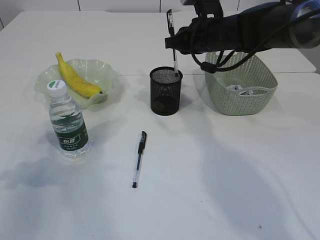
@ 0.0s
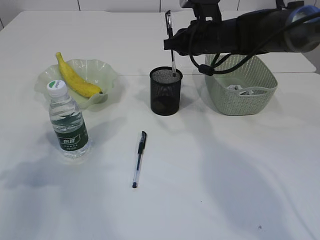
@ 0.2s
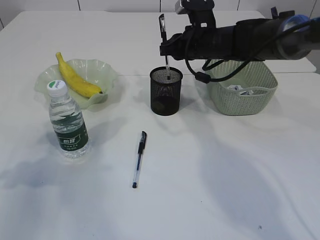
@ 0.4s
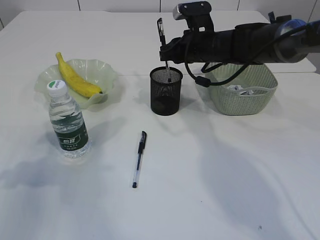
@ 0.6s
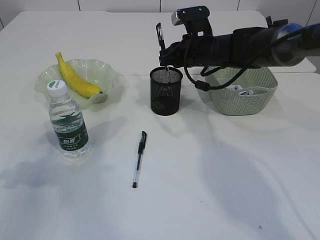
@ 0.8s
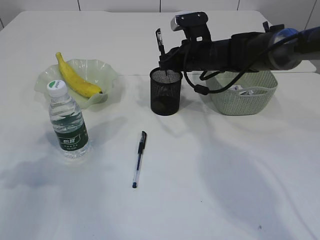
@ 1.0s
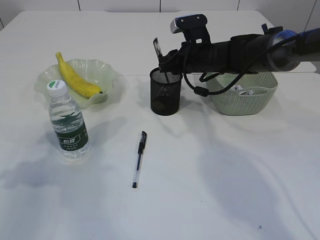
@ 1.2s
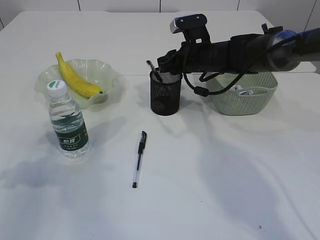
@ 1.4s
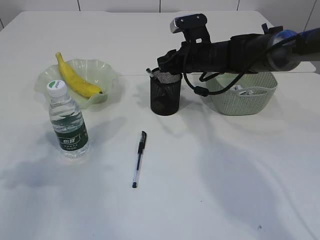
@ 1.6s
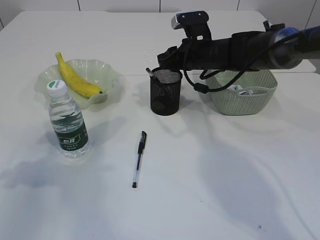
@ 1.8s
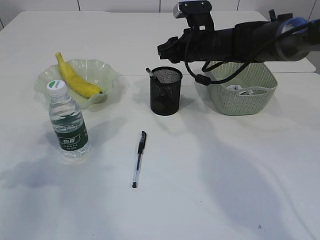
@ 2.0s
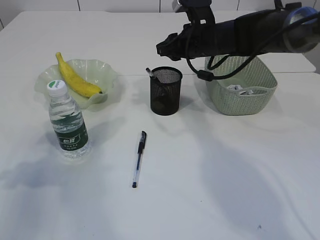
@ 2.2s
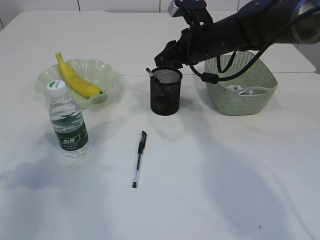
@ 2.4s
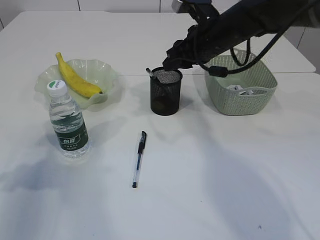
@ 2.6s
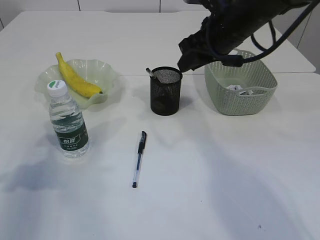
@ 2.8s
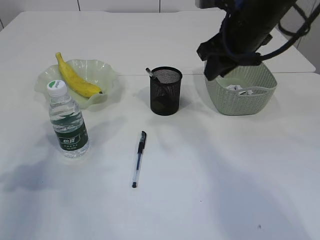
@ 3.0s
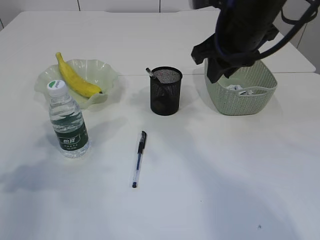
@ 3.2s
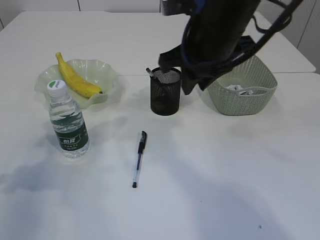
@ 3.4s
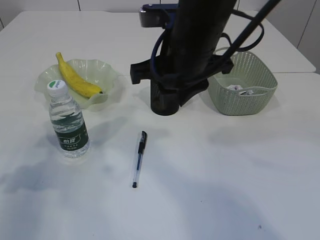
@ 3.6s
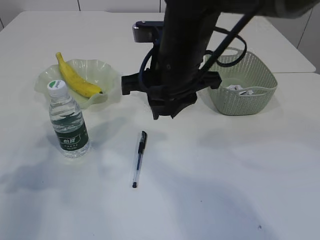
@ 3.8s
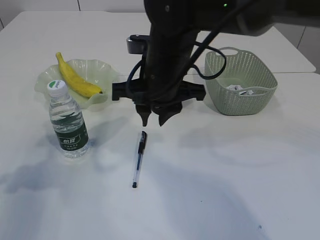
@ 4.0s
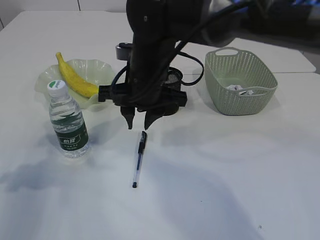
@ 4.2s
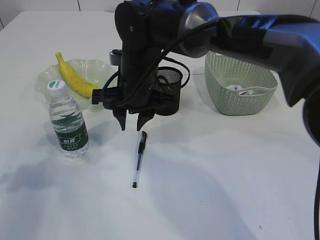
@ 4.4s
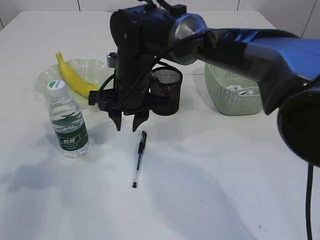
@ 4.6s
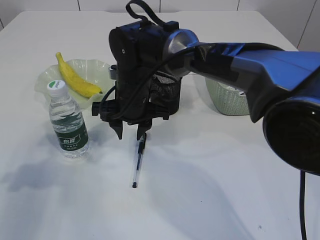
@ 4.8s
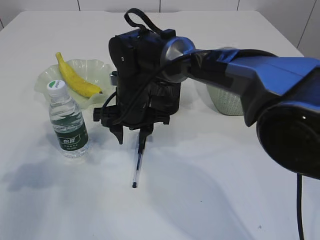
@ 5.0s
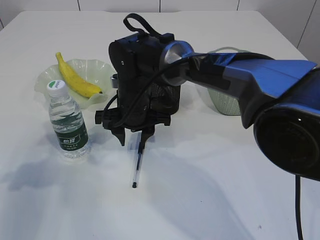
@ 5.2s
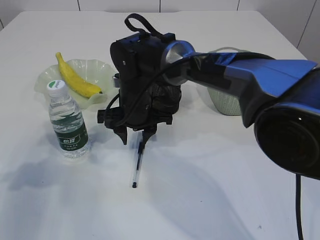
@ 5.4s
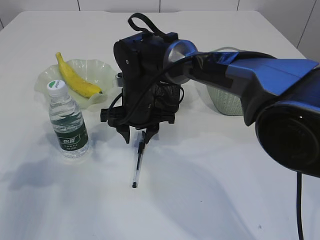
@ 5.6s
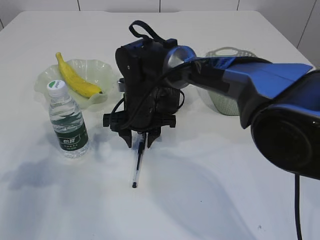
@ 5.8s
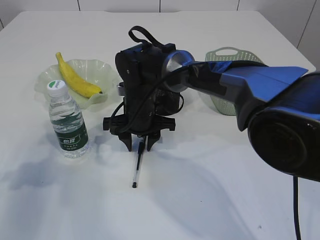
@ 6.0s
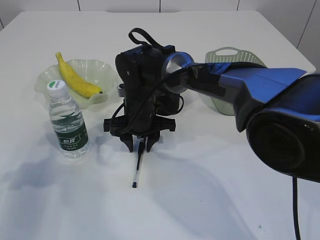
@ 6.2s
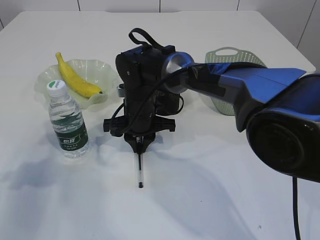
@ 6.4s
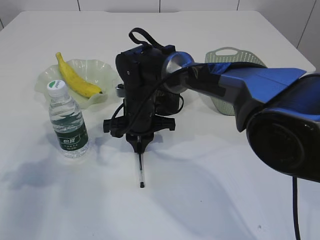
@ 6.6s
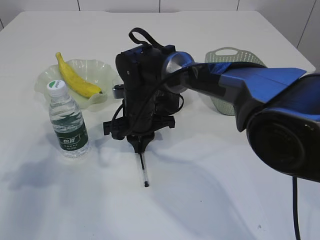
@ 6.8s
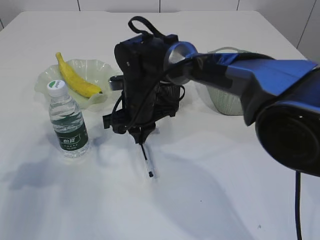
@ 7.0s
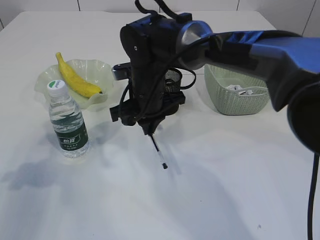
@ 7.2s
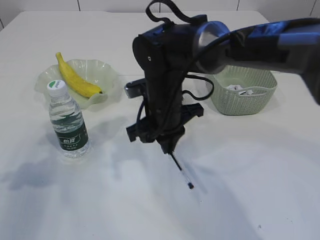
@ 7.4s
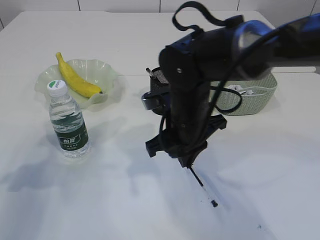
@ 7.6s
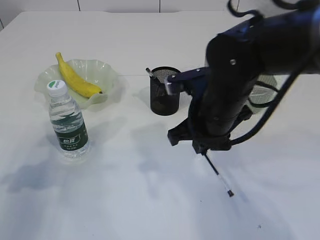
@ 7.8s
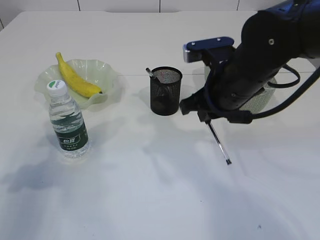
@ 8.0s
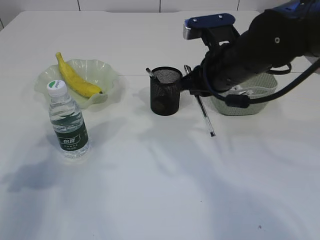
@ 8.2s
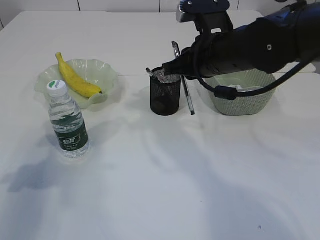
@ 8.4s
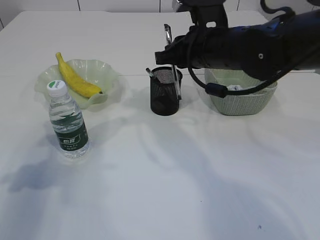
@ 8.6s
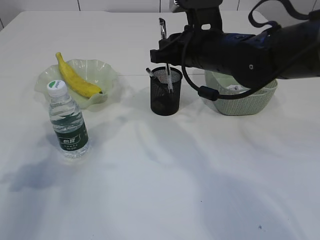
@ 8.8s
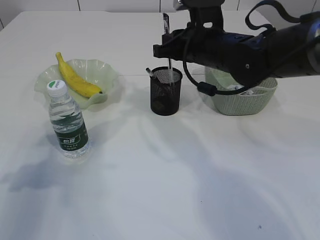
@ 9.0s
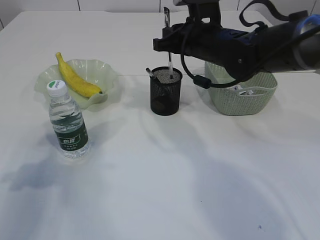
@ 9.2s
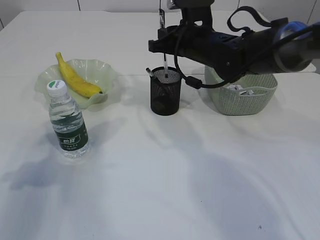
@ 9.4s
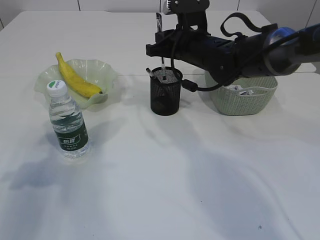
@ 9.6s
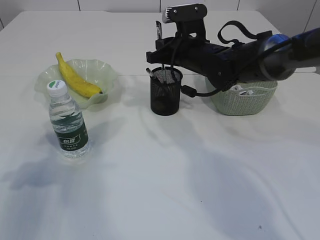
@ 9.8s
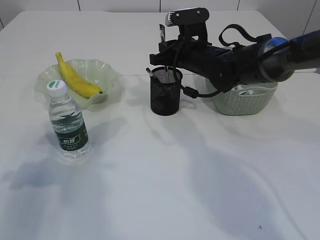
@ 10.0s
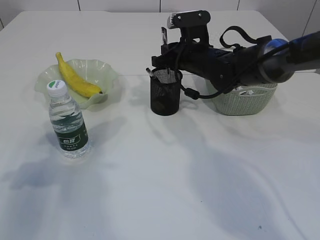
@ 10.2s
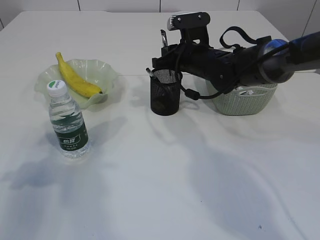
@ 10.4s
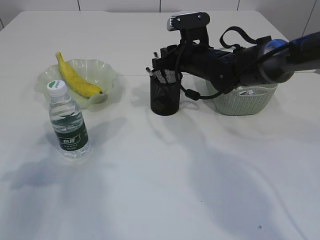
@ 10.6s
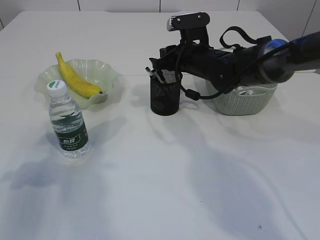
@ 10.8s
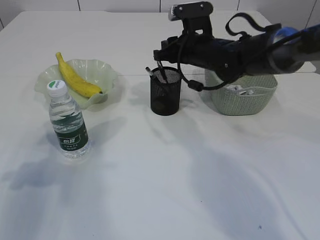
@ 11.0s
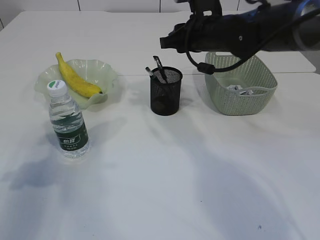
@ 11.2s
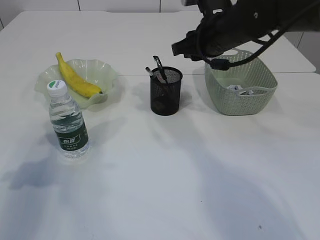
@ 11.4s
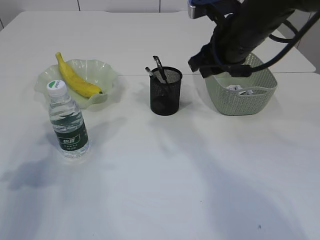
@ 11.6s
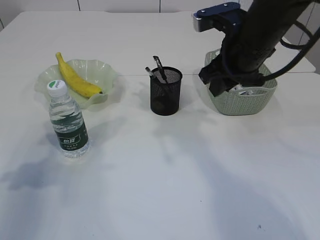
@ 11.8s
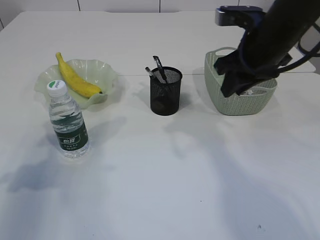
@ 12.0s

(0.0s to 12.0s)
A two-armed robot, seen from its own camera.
Step, 0.0s - 1.8s: Place the pen into the pen holder.
Step, 2.0s - 7.4s: Pick up the pen with right arm.
Step, 7.6s - 11.0s: Place the pen into the pen holder.
0.0s - 1.6s: The right gripper heads downward, covering about 5 cm.
1.6s - 3.0s: The right gripper is displaced upward and backward by some 15 cm.
3.0s - 4.4s: The right gripper travels to the left and downward by approximately 20 cm.
4.4s - 6.0s: The right gripper moves downward, about 10 cm.
6.0s - 7.6s: The right gripper heads backward and to the right, covering some 10 cm, and closes up.
7.6s - 9.0s: The right gripper travels forward and upward by about 10 cm.
9.0s - 10.4s: The right gripper goes about 10 cm forward and downward.
10.4s - 12.0s: The right gripper moves backward, upward and to the right, approximately 15 cm.

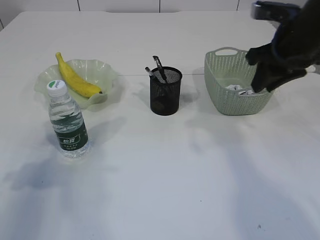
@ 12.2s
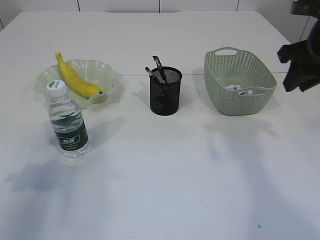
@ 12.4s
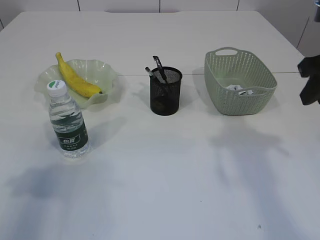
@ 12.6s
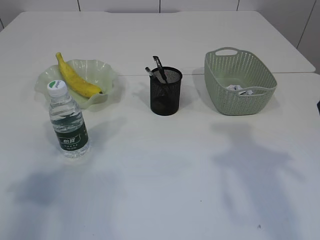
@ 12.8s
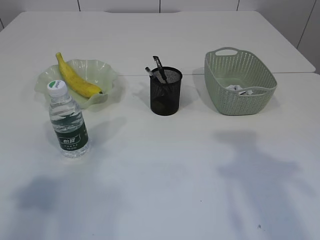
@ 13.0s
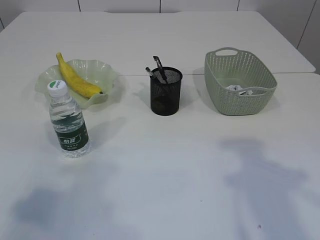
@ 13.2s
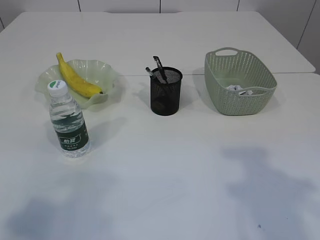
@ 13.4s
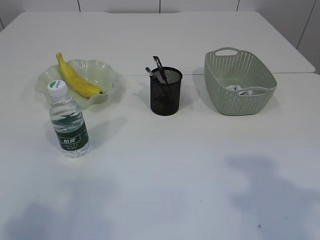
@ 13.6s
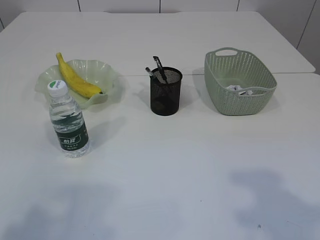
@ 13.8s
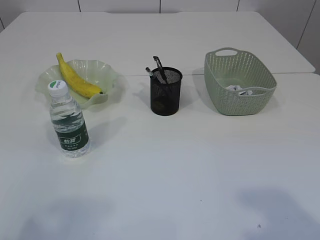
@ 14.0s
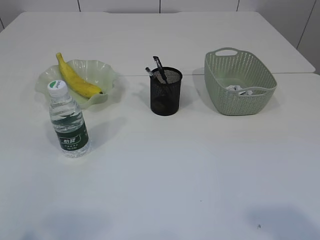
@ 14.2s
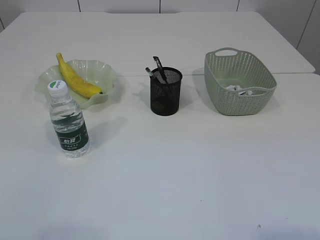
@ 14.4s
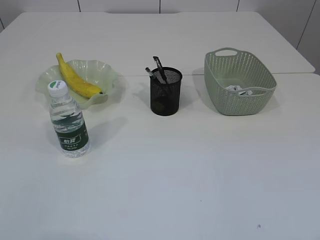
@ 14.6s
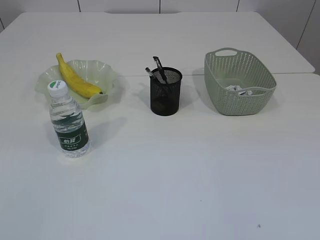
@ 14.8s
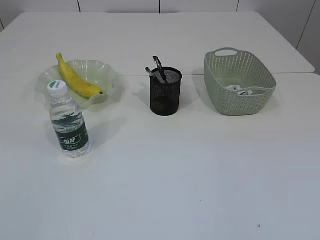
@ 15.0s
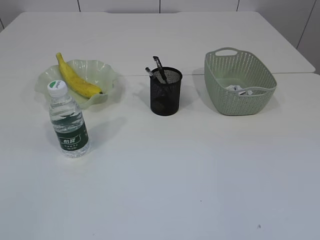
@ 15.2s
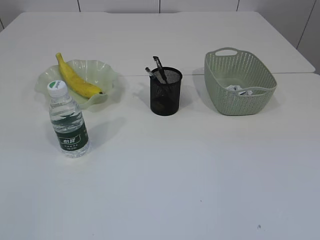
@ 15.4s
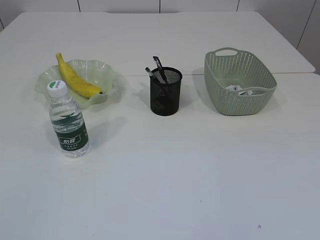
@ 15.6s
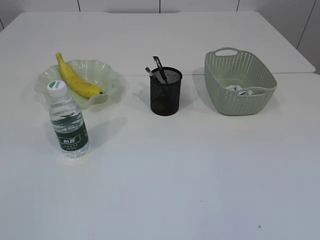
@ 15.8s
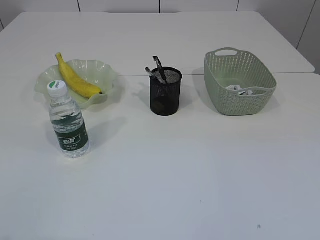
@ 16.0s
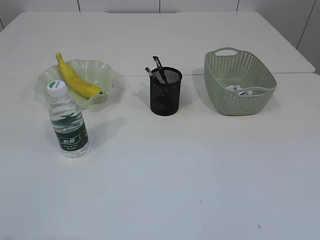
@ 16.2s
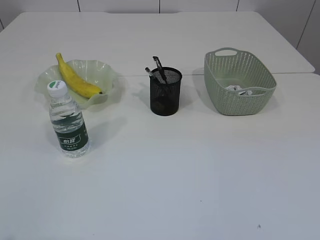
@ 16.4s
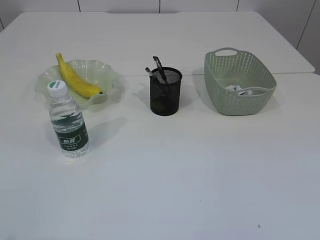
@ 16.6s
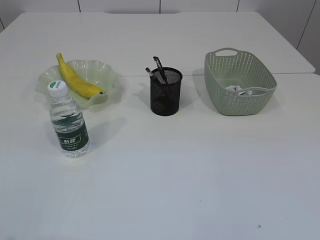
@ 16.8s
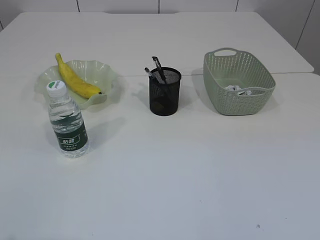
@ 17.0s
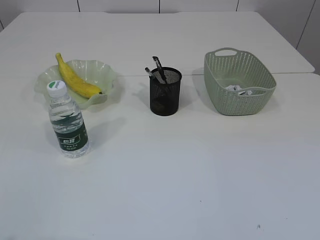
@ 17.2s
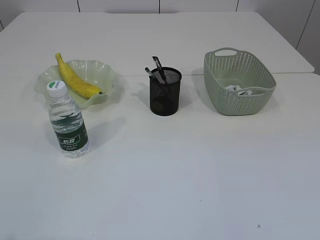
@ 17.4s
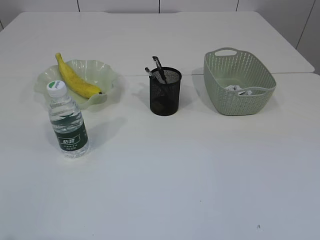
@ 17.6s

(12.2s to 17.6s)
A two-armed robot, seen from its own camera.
12.2s - 13.6s: The left gripper moves backward and upward, about 20 cm. The right gripper travels backward by roughly 25 cm.
13.6s - 15.0s: The left gripper is displaced backward by approximately 10 cm.

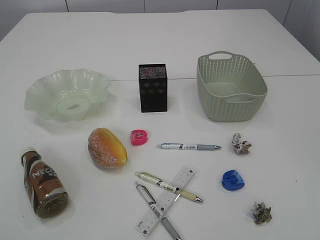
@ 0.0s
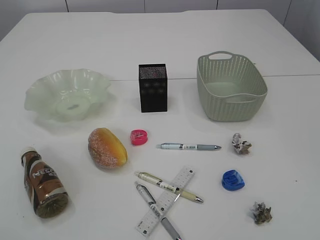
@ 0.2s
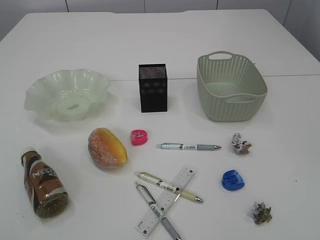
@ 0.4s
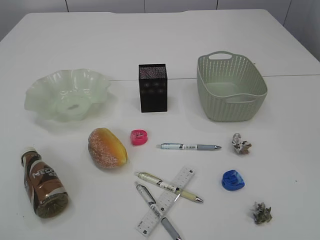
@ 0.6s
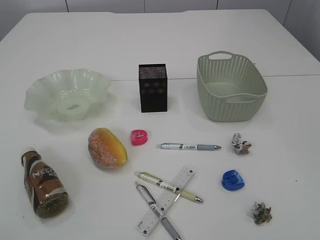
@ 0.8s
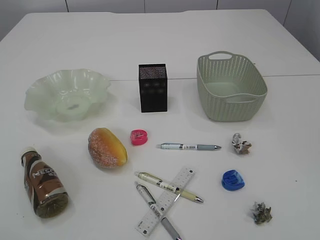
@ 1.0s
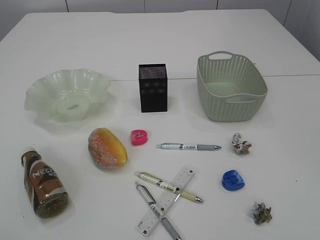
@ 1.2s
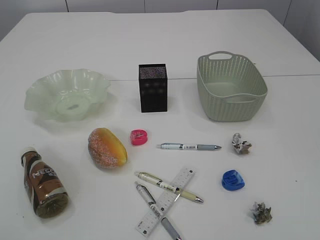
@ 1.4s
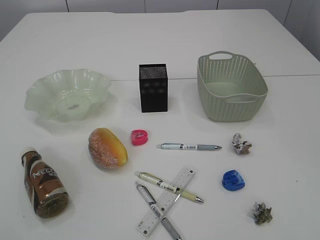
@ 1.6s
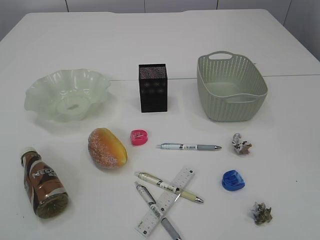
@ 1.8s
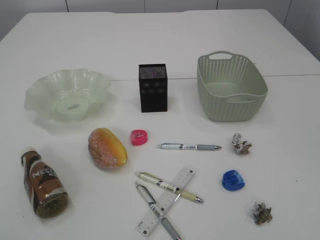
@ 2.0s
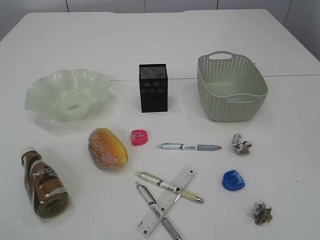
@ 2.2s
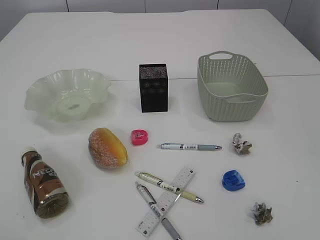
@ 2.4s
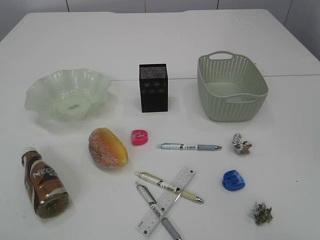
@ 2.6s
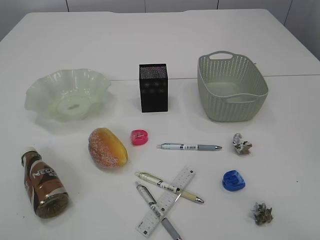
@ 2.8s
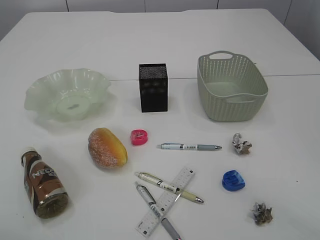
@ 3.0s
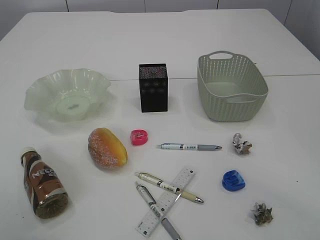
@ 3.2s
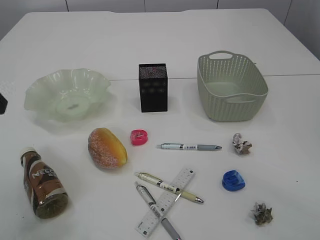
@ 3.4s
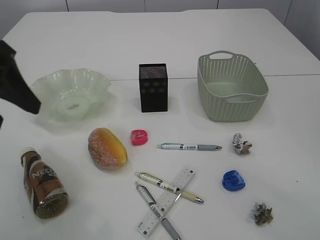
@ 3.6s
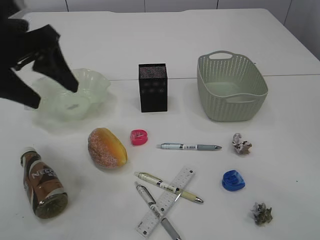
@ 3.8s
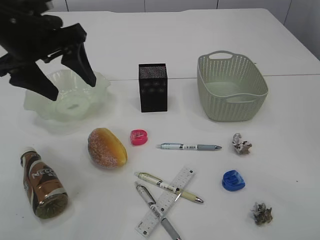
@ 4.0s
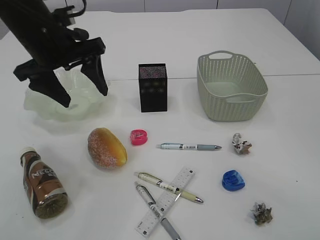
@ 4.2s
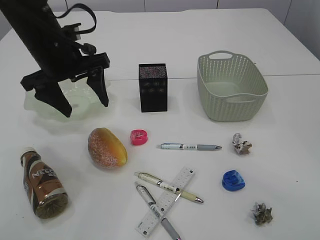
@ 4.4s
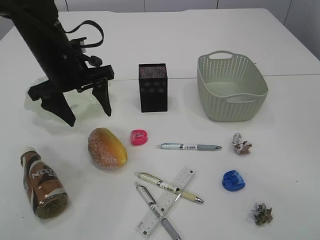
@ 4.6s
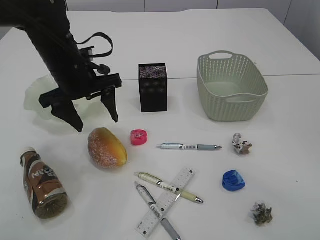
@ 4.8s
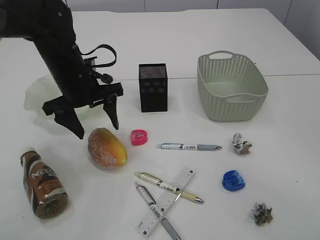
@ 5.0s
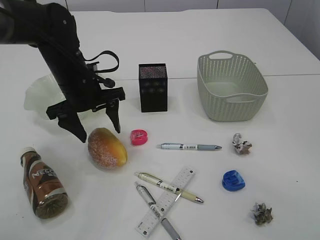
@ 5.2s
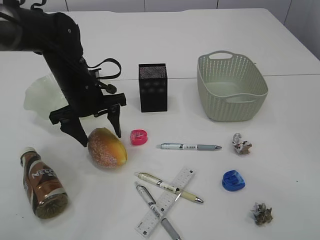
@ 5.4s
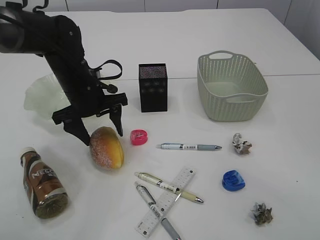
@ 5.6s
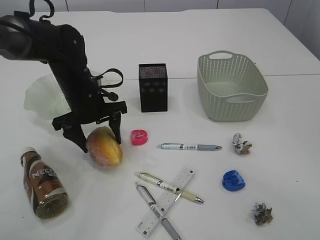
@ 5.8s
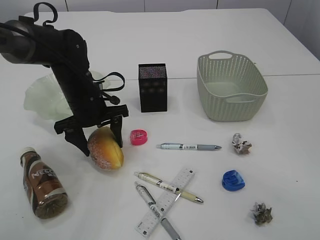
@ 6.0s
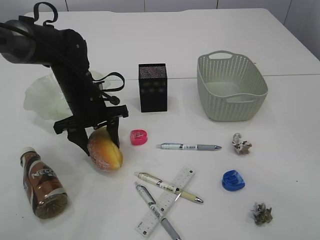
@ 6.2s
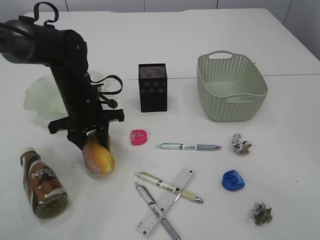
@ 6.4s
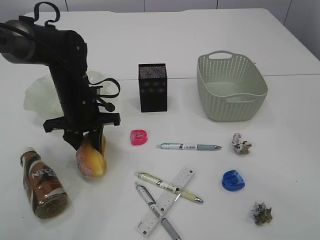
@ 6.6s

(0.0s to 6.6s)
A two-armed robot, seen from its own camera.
3.2s - 5.0s: The left gripper moves forward, downward and to the right, roughly 30 cm.
5.0s - 6.6s: The left gripper shifts approximately 5 cm downward, and closes.
